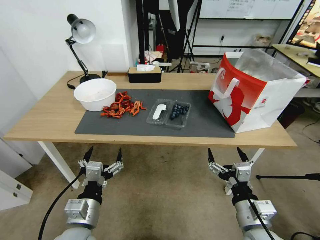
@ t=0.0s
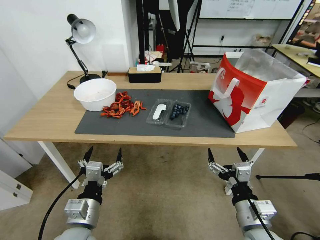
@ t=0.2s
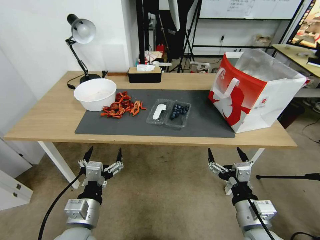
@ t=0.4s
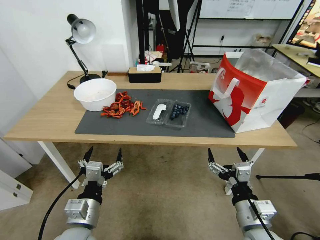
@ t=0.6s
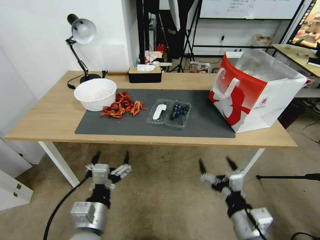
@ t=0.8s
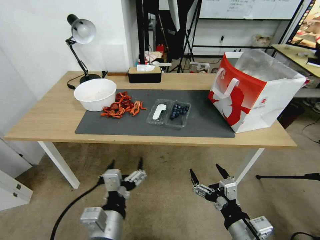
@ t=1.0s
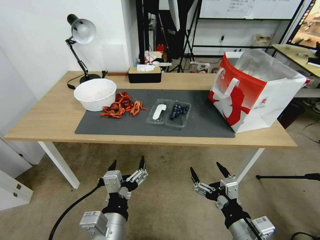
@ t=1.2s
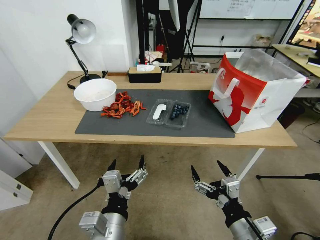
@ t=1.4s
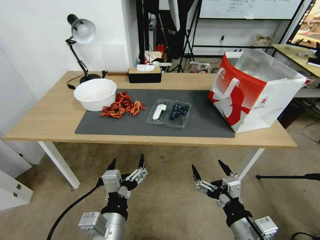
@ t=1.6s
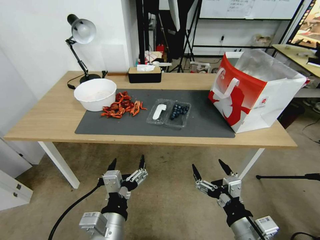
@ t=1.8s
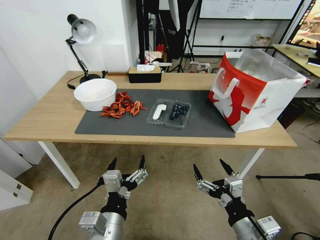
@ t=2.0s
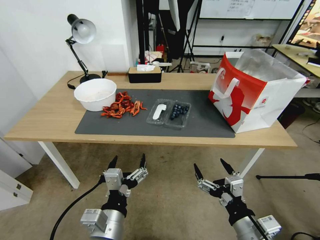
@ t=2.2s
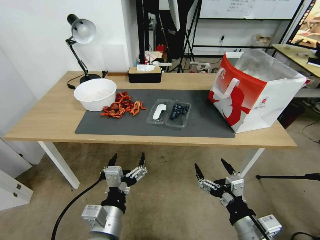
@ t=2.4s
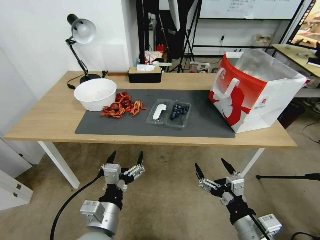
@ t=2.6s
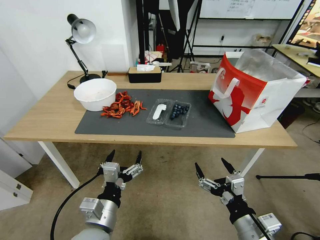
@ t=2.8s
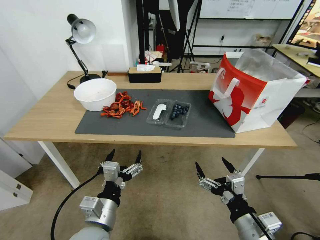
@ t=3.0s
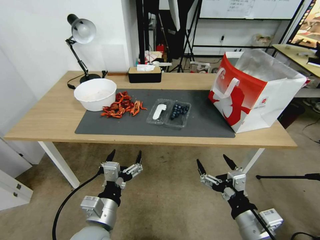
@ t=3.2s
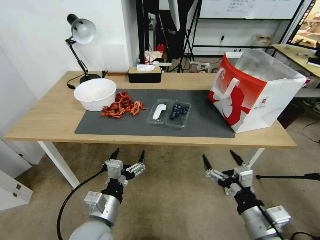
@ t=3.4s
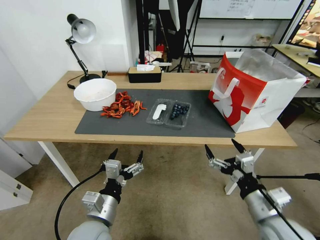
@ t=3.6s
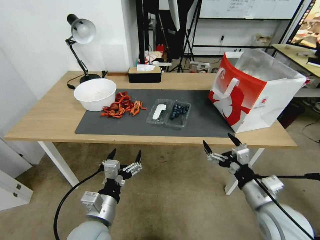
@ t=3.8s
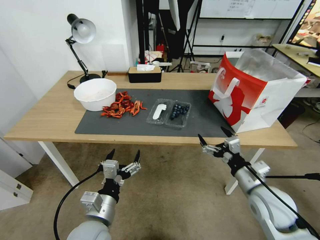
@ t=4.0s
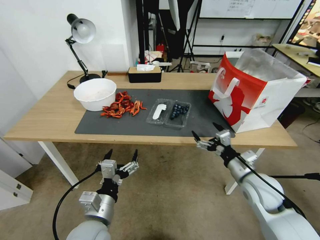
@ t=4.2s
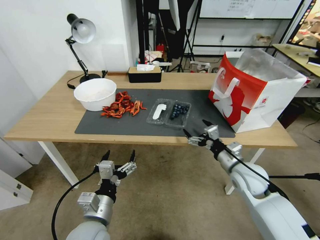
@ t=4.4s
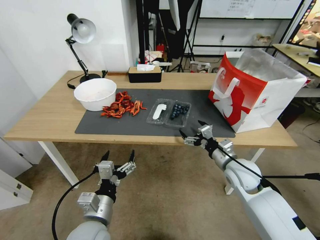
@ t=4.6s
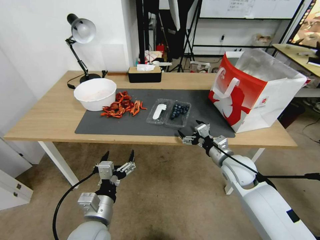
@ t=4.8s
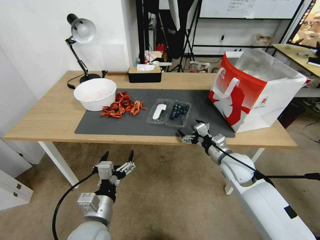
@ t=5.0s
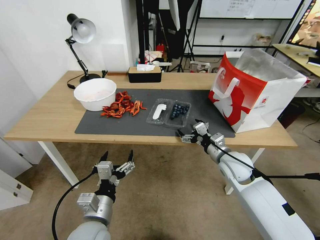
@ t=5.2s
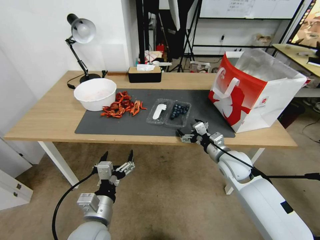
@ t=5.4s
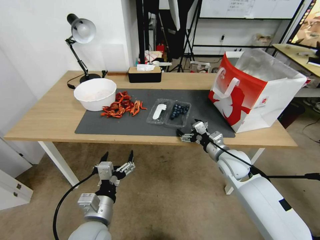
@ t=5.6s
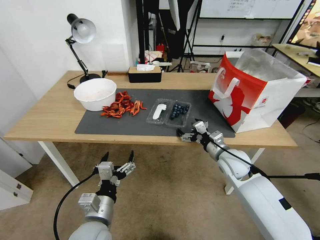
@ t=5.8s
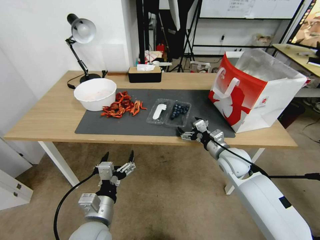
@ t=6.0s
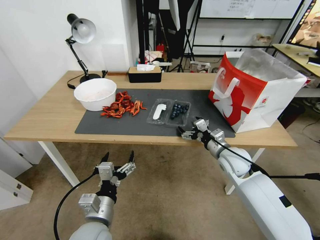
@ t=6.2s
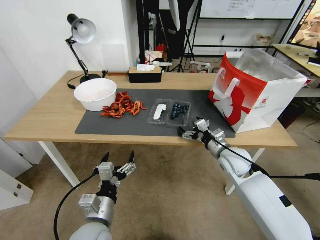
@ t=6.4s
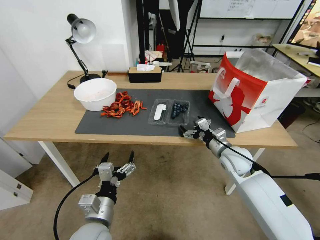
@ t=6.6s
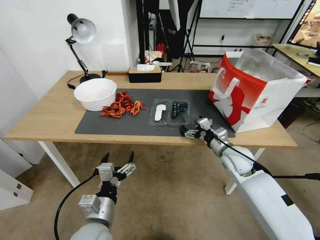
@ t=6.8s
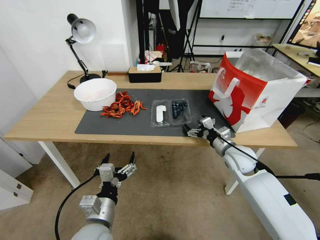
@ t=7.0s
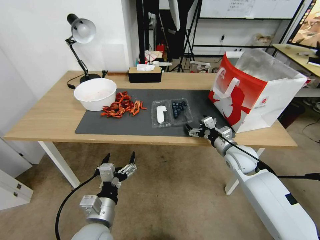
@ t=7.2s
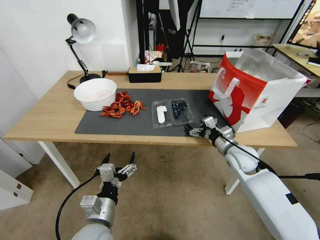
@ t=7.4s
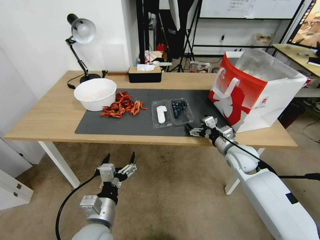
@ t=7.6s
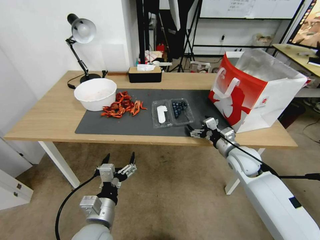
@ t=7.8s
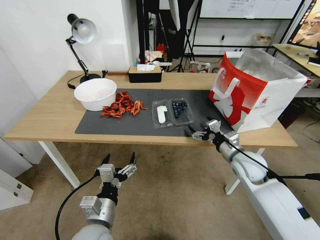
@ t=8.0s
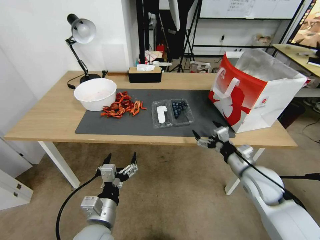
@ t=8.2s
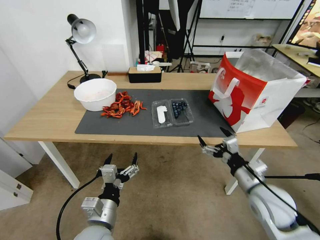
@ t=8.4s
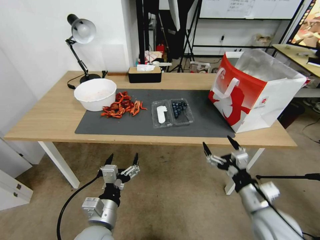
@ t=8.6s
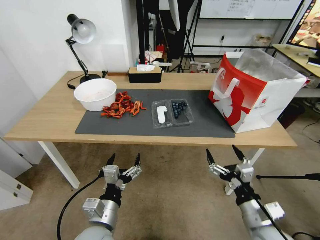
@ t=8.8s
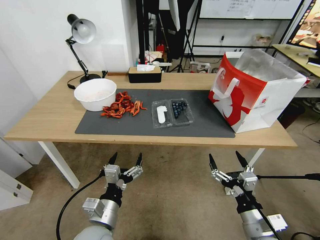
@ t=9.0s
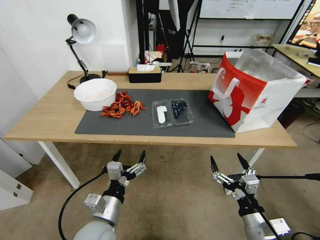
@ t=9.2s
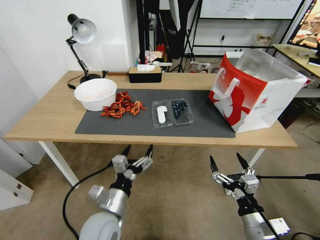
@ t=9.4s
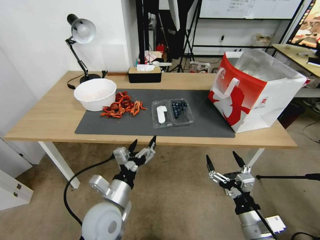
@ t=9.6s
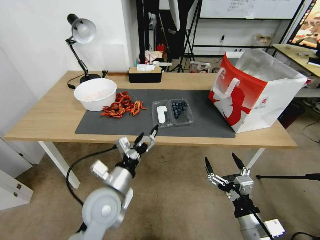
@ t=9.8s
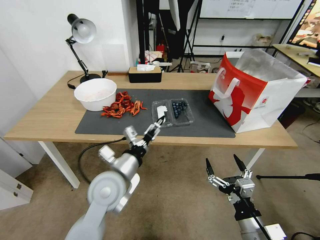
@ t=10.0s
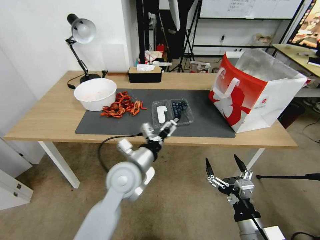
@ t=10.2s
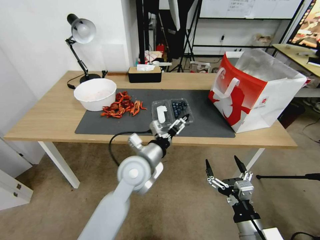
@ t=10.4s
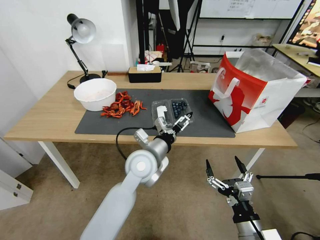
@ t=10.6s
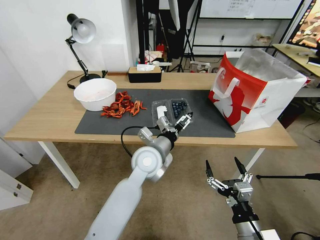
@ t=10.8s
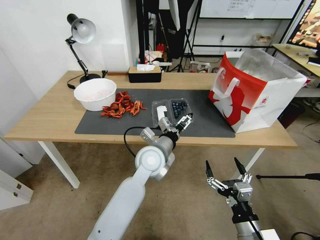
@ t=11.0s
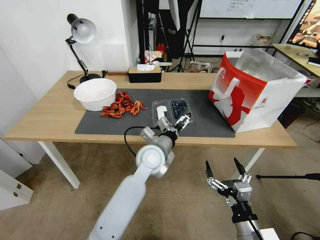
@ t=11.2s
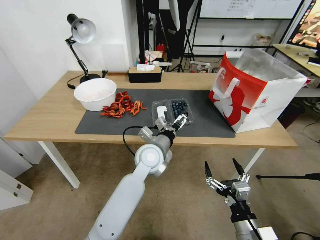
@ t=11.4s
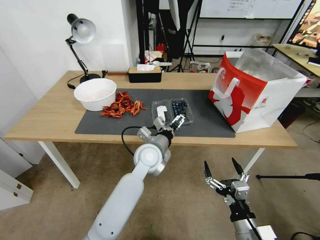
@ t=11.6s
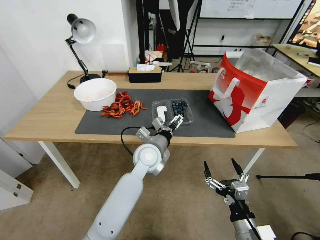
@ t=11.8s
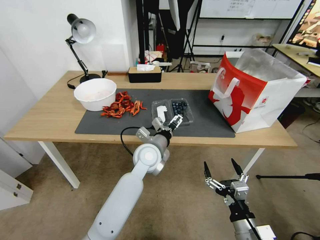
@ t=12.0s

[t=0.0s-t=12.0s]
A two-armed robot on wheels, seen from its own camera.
Task of the whole recording: Close the takeout container lid, then place the container into the takeout bag.
t=1.6s to t=3.0s: The left gripper ends up approximately 5 cm from where it was.
t=3.0s to t=4.4s: The right gripper goes approximately 20 cm forward.
t=4.4s to t=6.0s: The right gripper travels forward by roughly 5 cm.
t=6.0s to t=7.6s: There are only small adjustments of the grippers.
t=7.6s to t=9.0s: The right gripper goes approximately 25 cm backward.
t=9.0s to t=10.4s: The left gripper shifts roughly 20 cm forward, to the right and upward.
t=10.4s to t=12.0s: The left gripper goes roughly 5 cm forward.

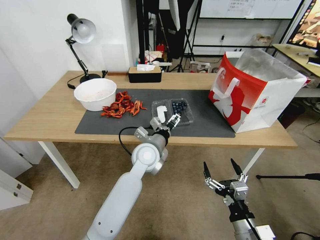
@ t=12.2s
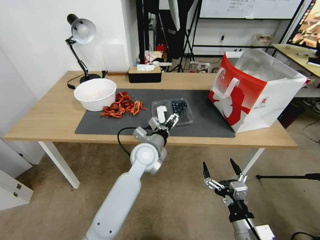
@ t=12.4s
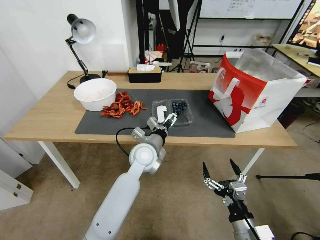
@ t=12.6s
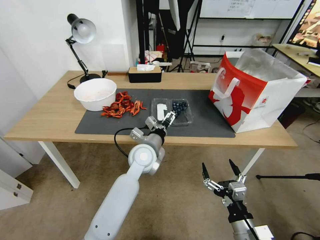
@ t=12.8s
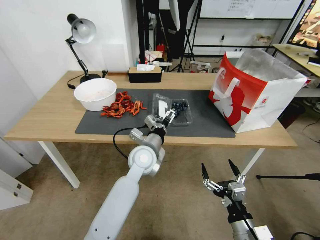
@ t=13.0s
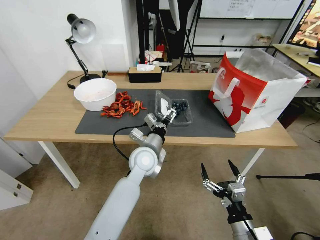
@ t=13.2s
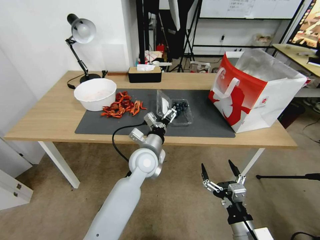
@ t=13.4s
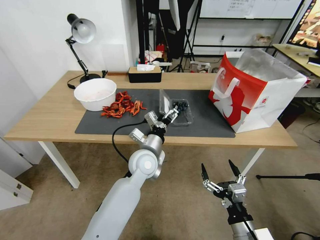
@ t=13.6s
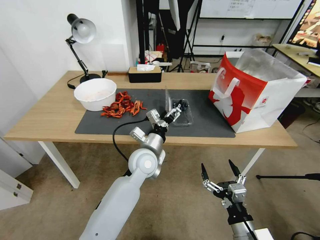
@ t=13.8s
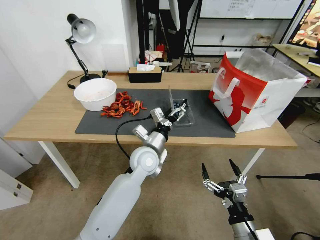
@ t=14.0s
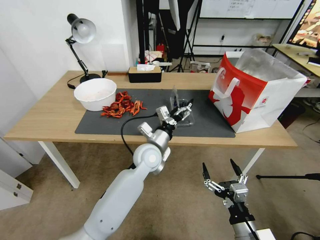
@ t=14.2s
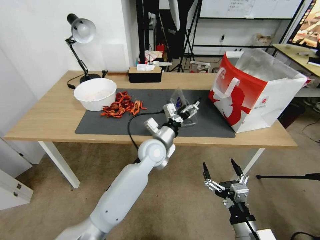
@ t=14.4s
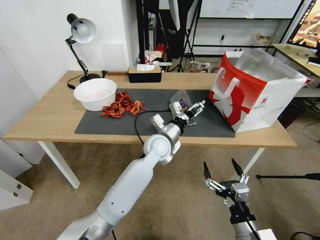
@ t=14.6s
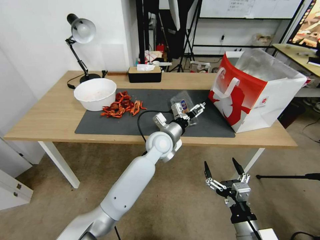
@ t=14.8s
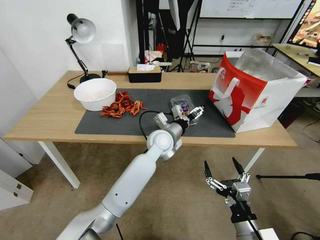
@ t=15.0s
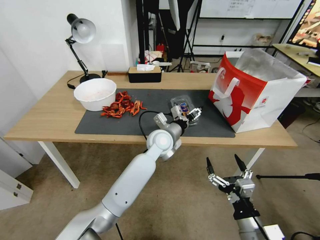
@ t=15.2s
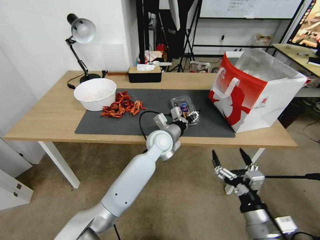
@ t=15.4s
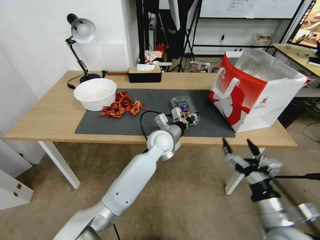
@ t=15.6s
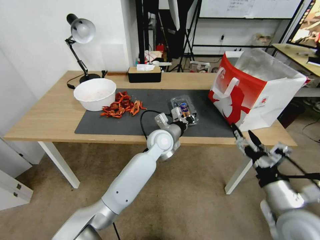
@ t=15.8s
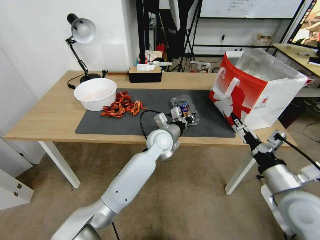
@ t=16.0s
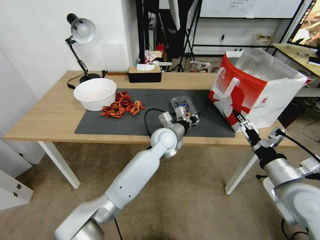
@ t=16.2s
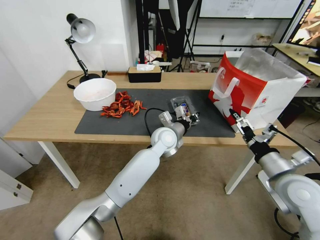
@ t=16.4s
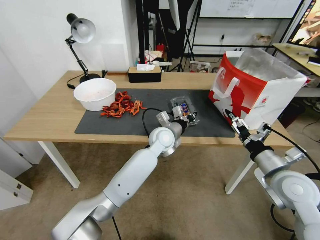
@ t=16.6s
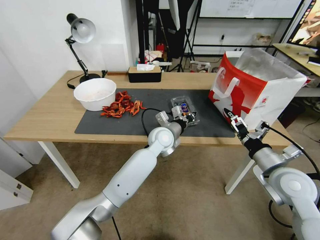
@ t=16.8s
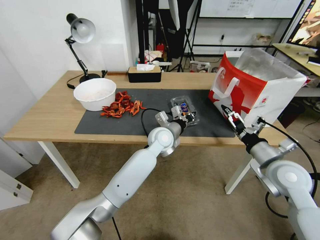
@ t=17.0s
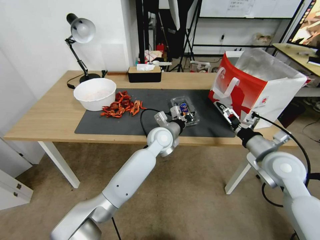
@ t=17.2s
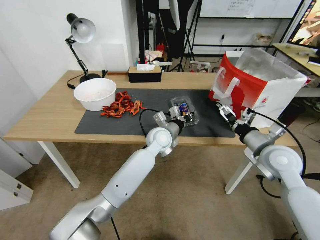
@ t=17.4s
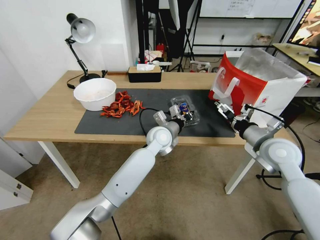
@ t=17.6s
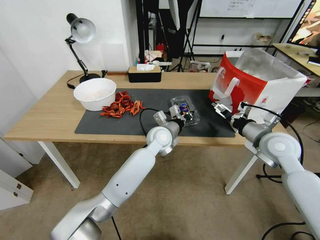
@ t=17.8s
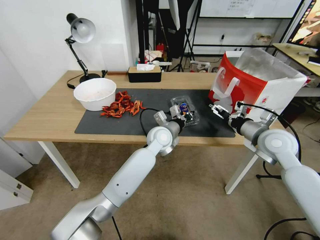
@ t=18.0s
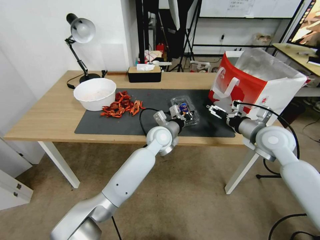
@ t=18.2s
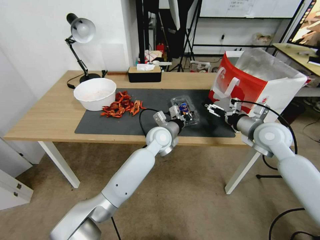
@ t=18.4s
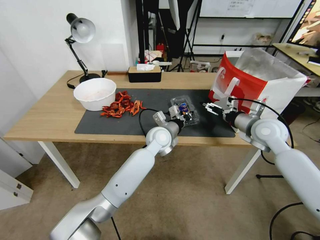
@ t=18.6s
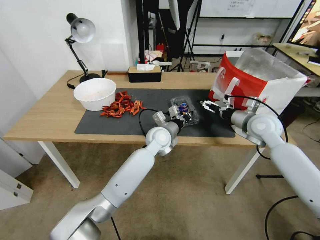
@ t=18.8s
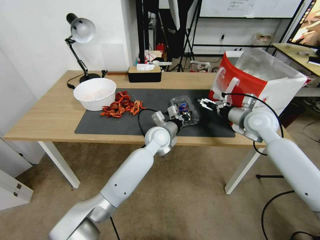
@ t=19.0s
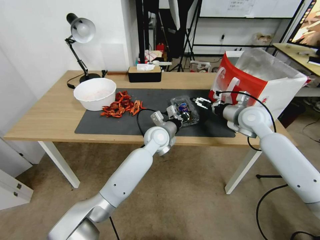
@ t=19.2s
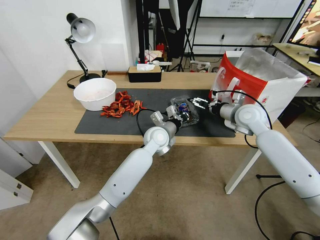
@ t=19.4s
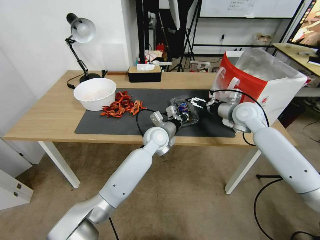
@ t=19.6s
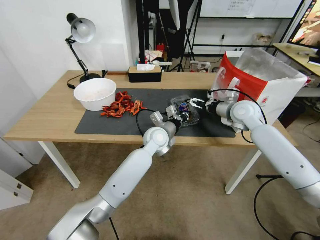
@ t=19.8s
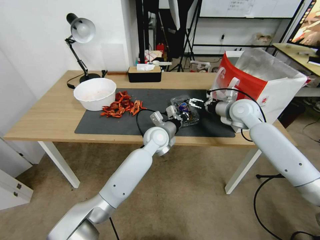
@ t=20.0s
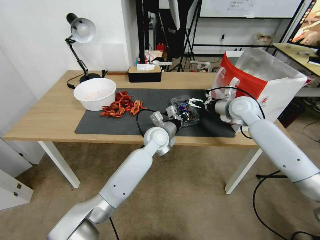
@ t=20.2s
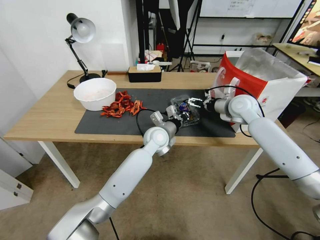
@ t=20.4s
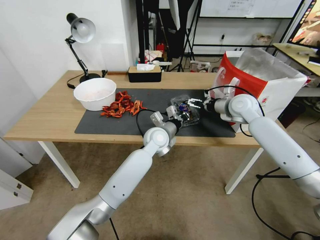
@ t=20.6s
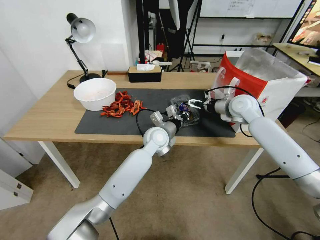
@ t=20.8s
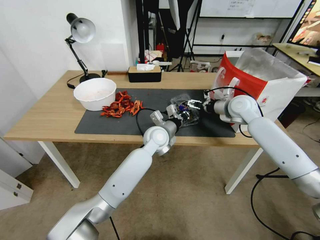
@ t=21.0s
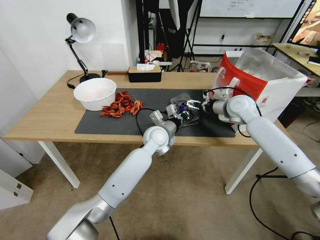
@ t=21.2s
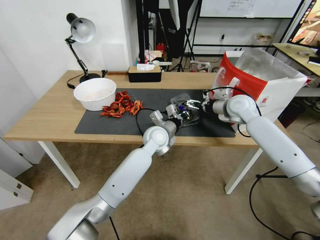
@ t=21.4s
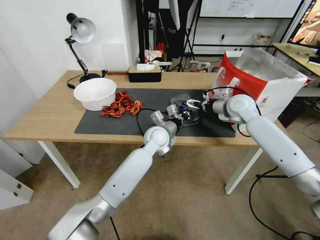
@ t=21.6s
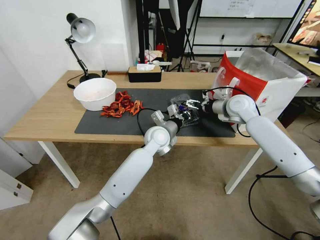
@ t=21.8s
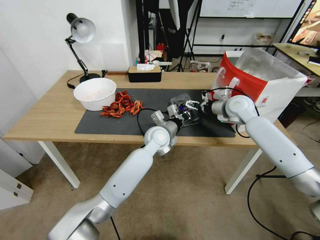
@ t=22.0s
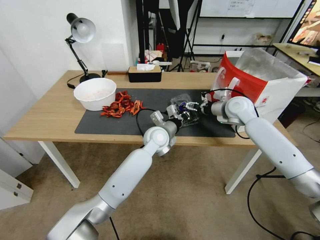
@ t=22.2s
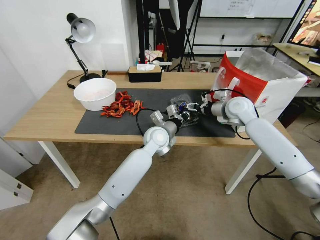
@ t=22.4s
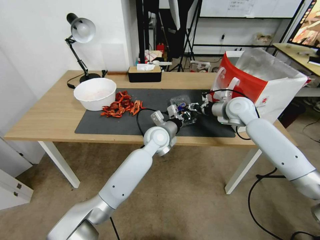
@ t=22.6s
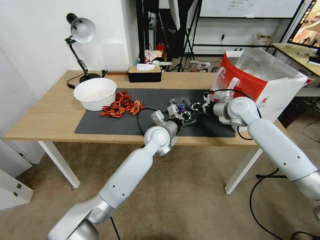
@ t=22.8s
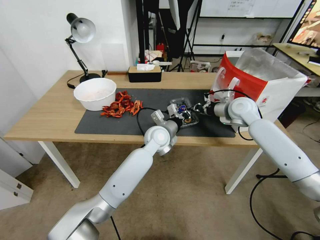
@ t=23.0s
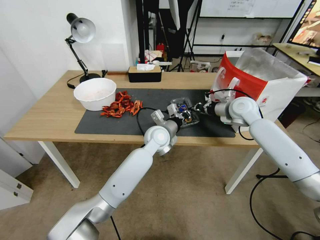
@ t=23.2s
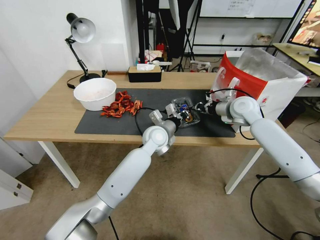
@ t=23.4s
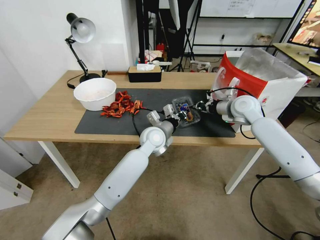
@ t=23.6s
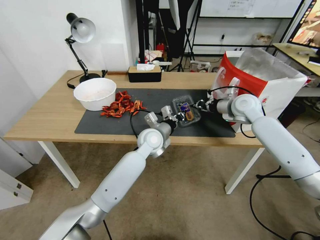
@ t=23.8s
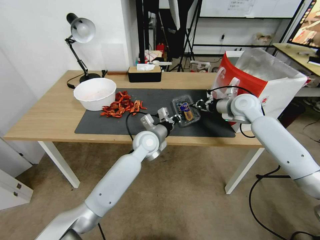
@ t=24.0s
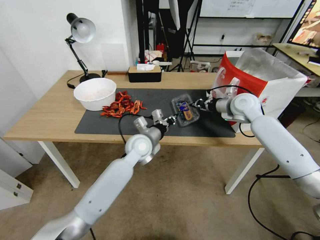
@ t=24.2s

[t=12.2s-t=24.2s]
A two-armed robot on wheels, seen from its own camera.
Task of the whole recording: Close the takeout container lid, then place the container into the takeout bag.
t=13.8s to t=15.2s: The left gripper shifts some 10 cm forward and to the right.
t=15.2s to t=16.6s: The right gripper shifts roughly 20 cm forward, upward and to the right; the left gripper closes up.
t=16.6s to t=18.2s: The right gripper is displaced forward by some 15 cm.
t=18.2s to t=19.8s: The right gripper heads forward, covering approximately 10 cm.
t=19.8s to t=21.2s: The grippers make only small movements.
t=21.2s to t=22.6s: The right gripper closes its fingers.
t=22.6s to t=24.2s: The left gripper heads to the left, covering approximately 5 cm.
